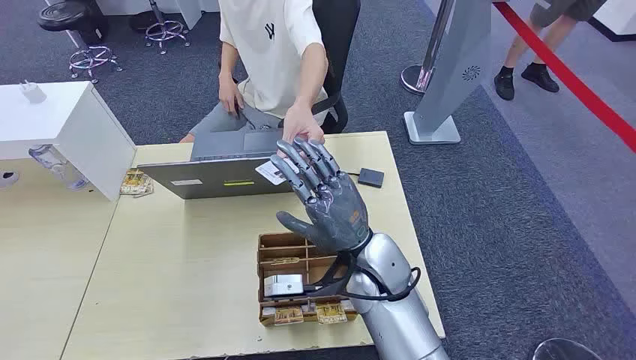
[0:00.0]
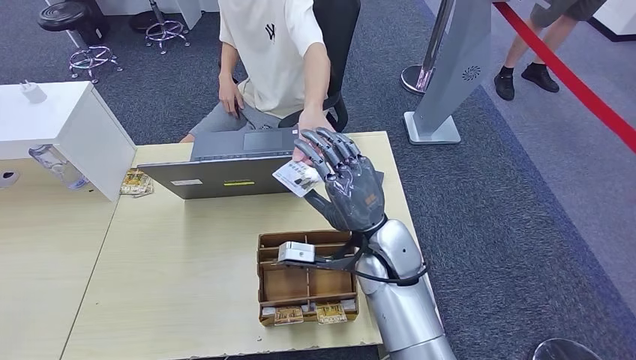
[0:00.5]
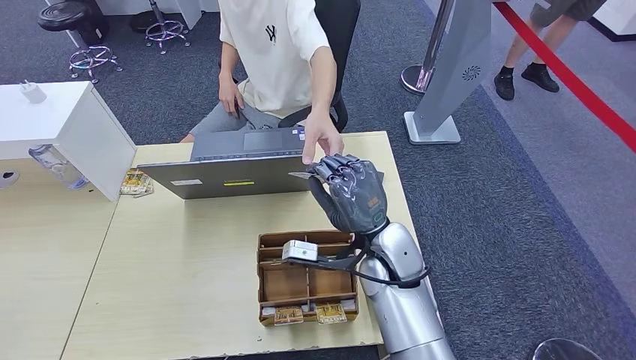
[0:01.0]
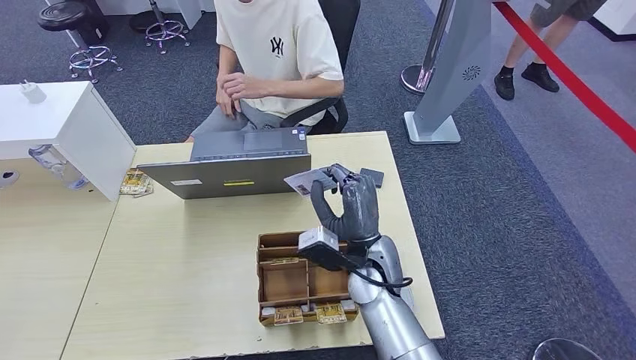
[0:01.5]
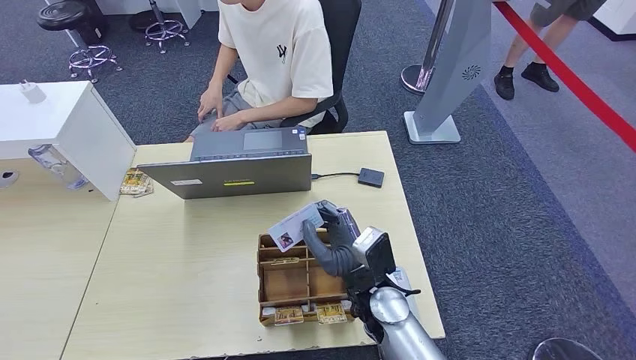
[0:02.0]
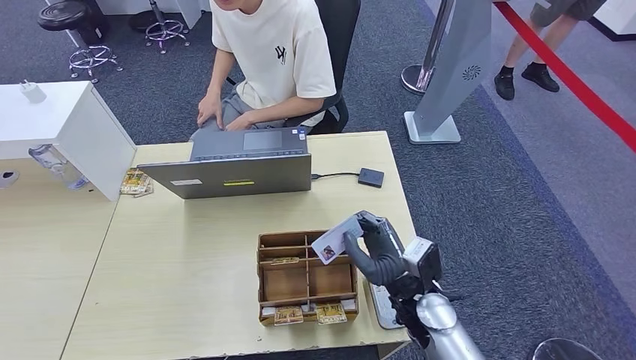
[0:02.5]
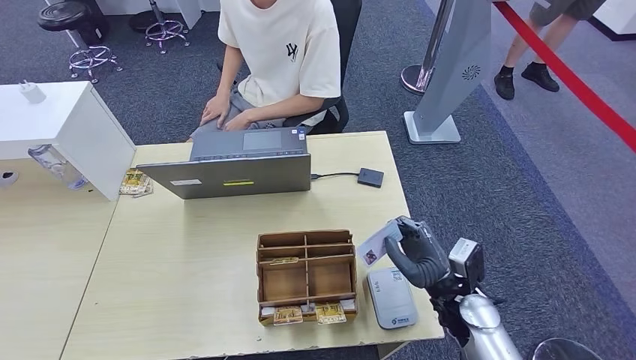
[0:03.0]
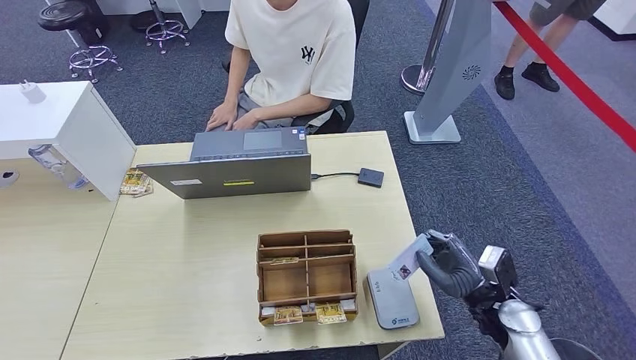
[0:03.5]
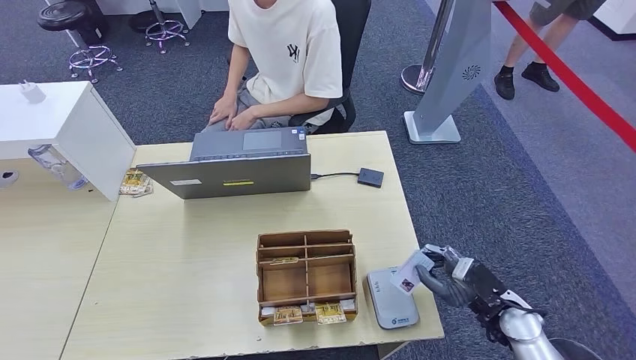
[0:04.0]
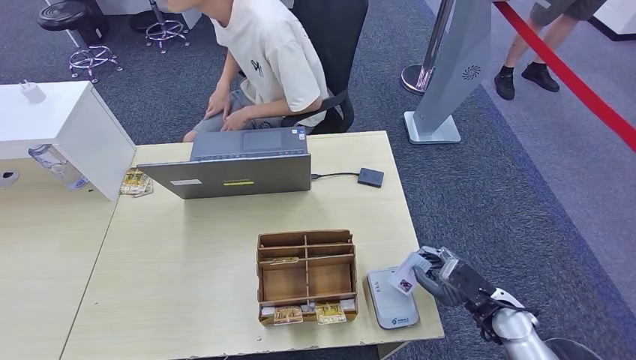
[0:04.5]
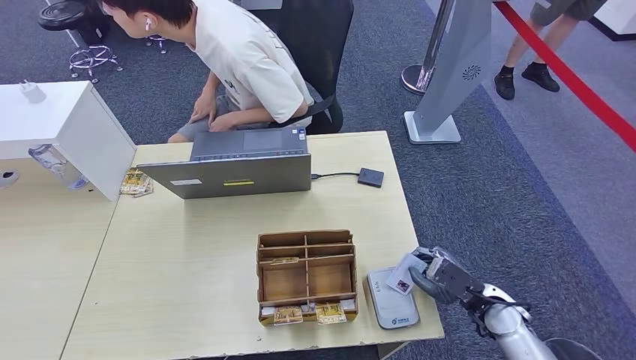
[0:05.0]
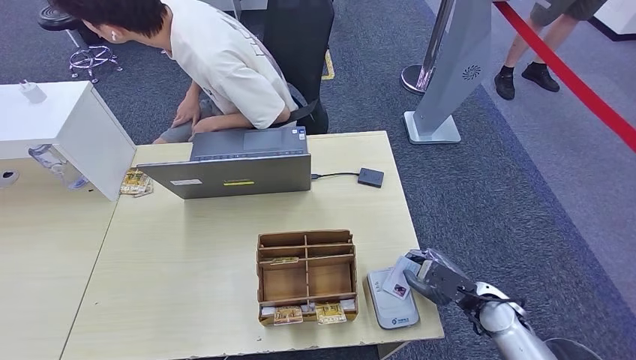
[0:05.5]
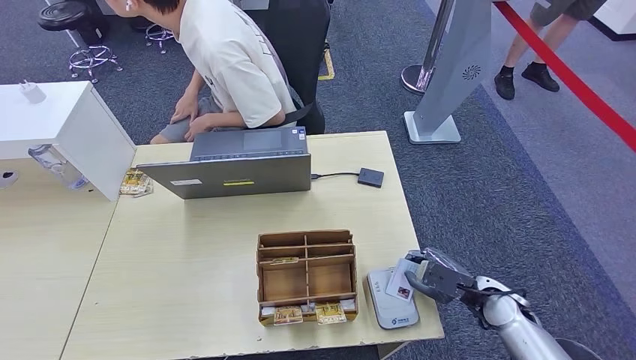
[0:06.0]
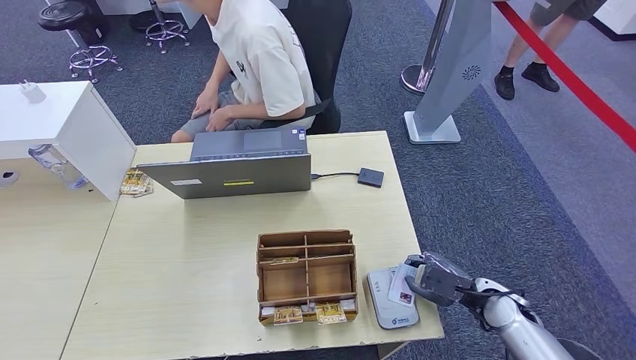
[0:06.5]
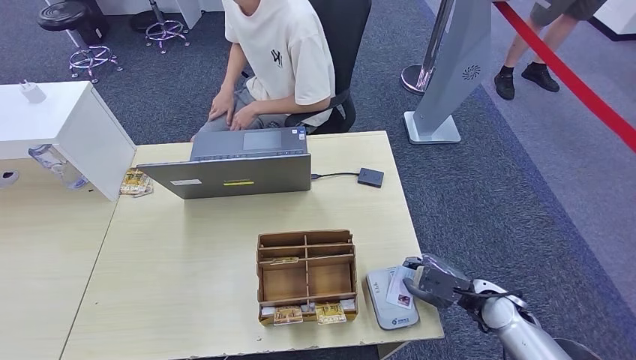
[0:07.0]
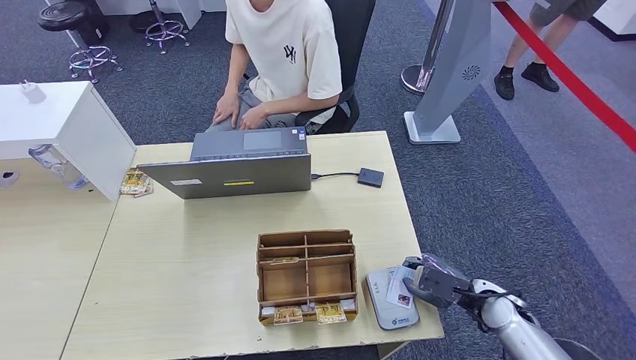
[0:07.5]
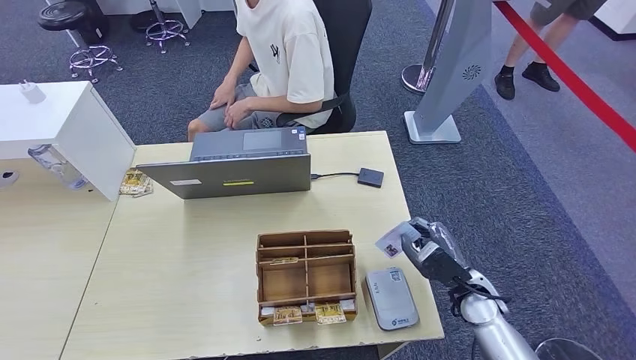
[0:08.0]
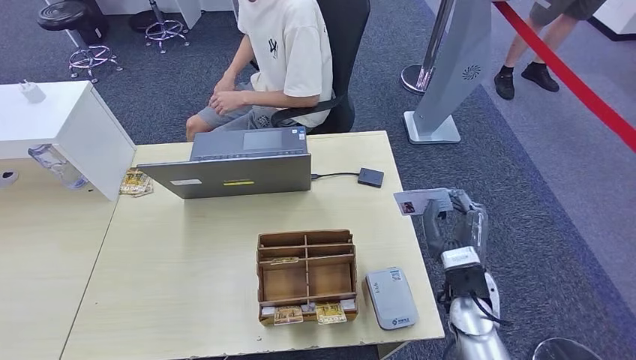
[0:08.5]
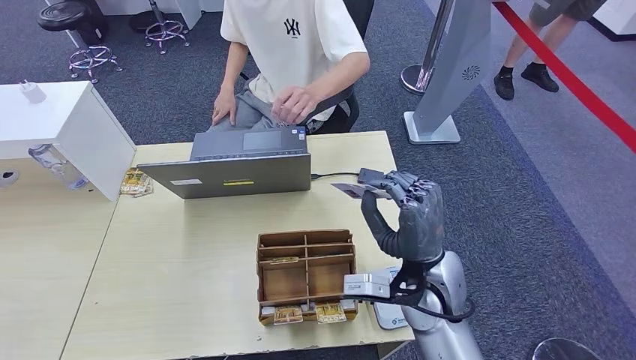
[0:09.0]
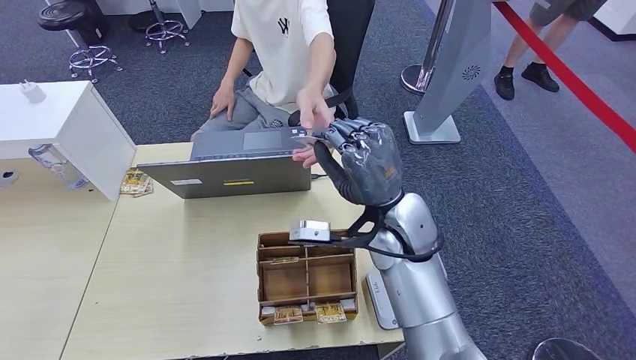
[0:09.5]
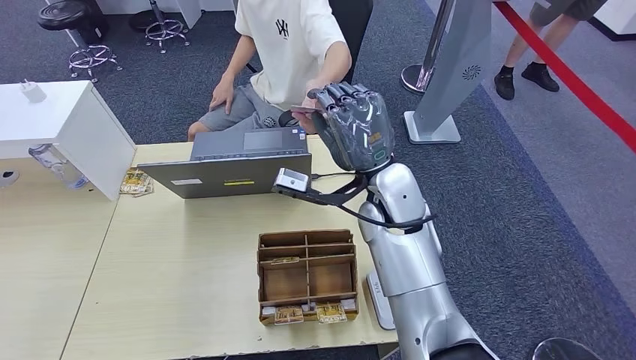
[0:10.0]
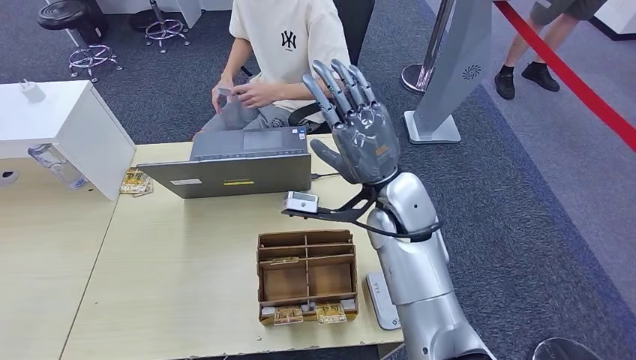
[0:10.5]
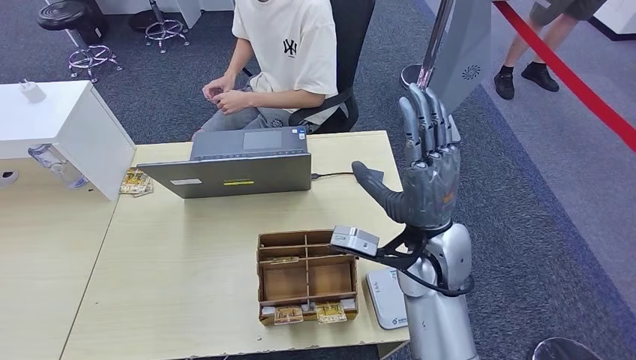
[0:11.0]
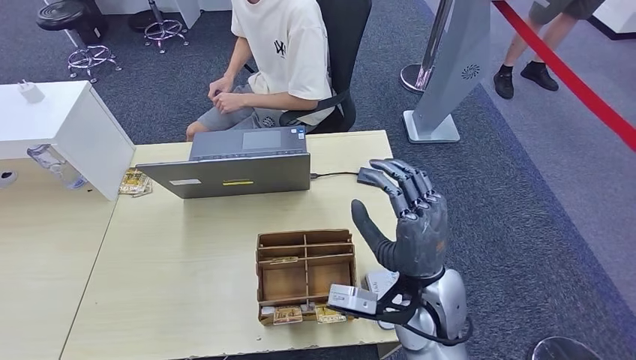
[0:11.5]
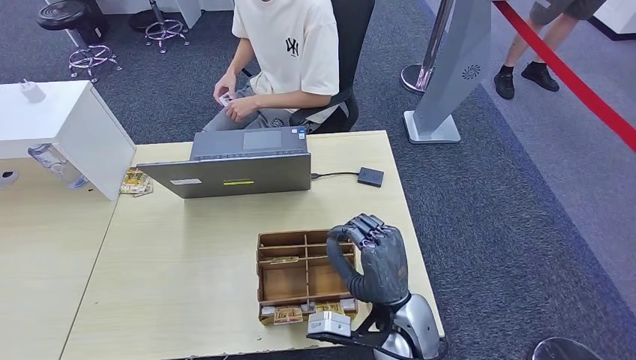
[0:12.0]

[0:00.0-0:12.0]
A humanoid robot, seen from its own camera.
Step, 0:00.0 to 0:01.5: Take the ID card from the person's hand.
Step, 0:02.0 to 0:08.5: Place the ID card on the card reader.
Step, 0:09.0 to 0:11.0: Hand the ID card to the person.
0:02.0 to 0:04.0: The right hand moves to the right, roughly 25 cm.
0:08.0 to 0:10.0: The right hand shifts some 30 cm upward, to the left and forward.
0:10.0 to 0:12.0: The right hand shifts approximately 20 cm backward and downward.

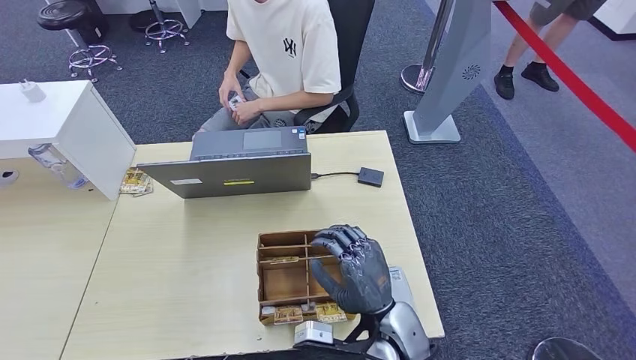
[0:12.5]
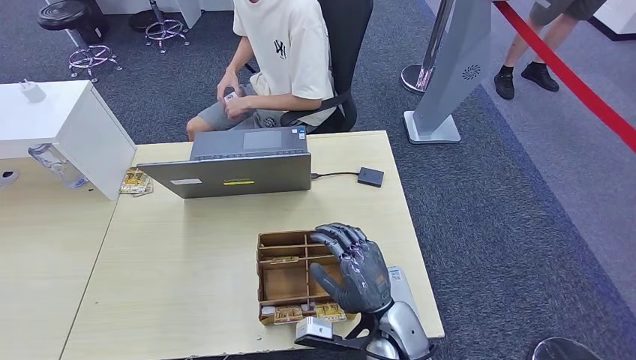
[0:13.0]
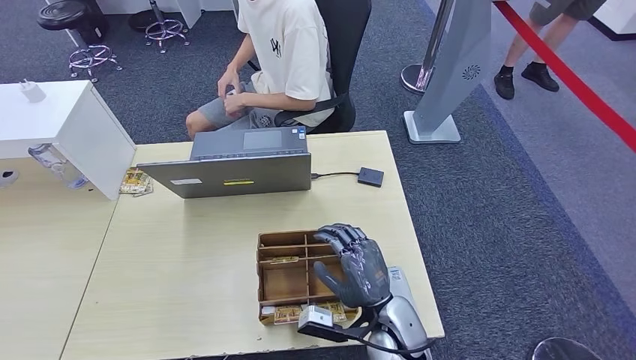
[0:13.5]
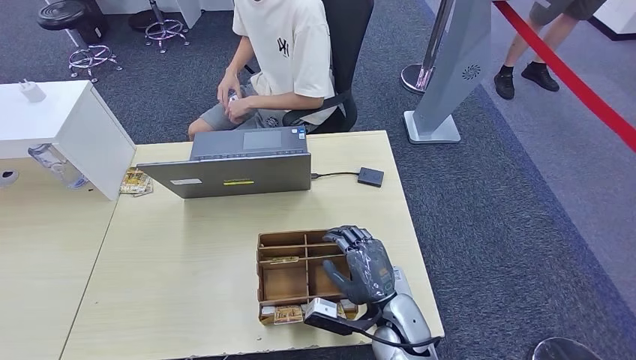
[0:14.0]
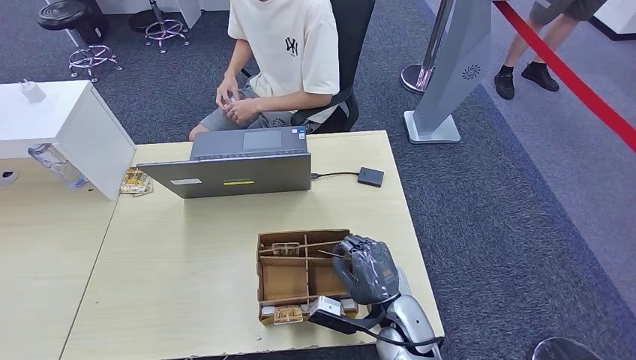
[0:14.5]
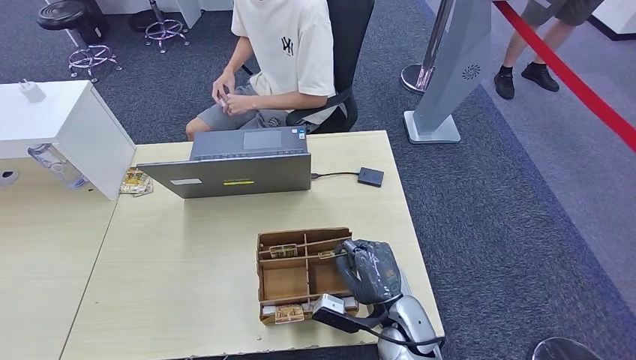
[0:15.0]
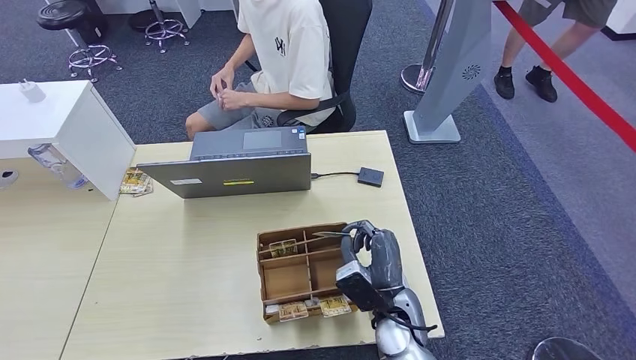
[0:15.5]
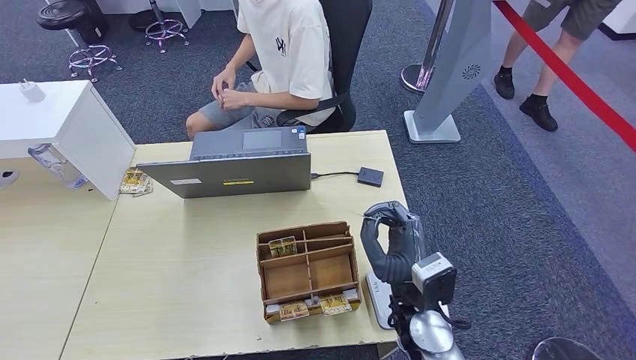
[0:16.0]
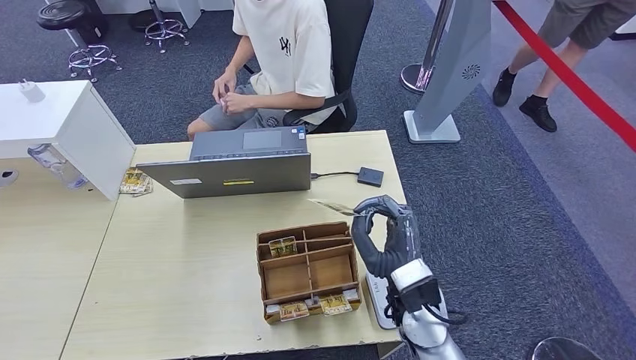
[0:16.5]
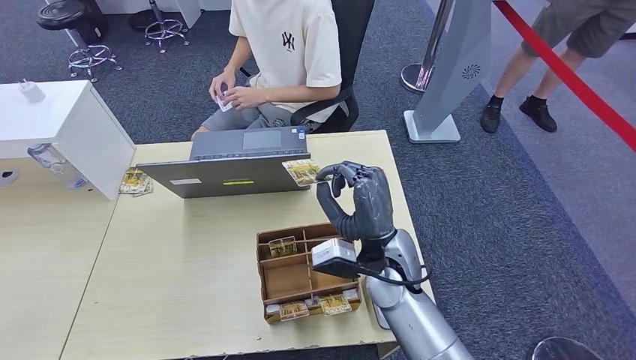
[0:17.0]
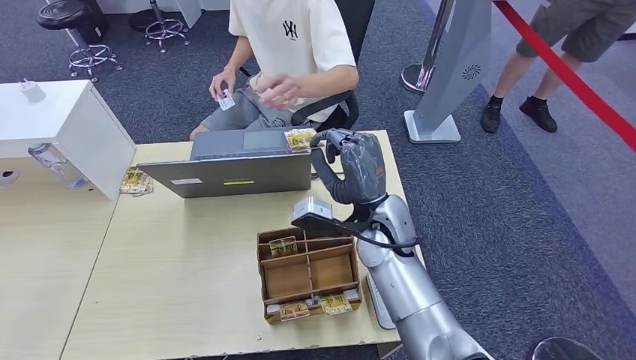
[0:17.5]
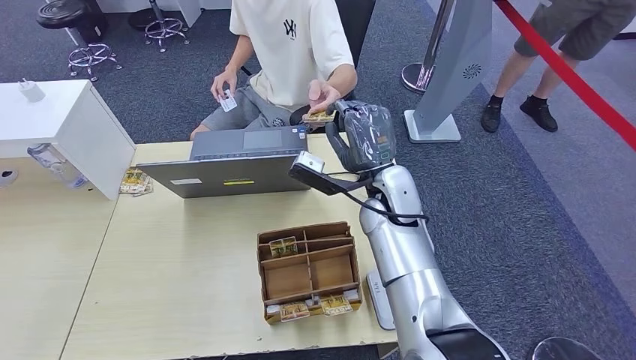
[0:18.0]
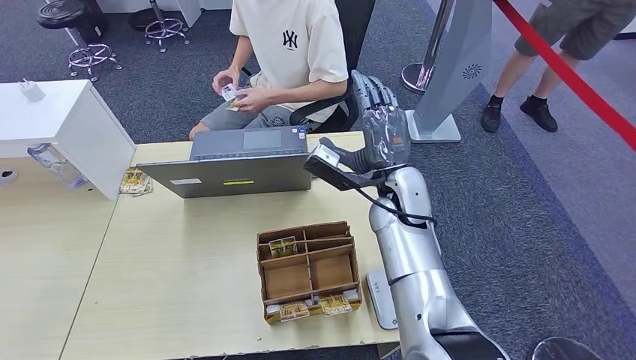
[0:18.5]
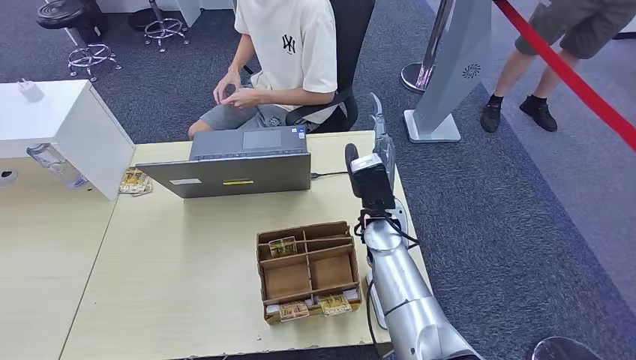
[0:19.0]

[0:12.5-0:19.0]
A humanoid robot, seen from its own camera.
Step, 0:14.0 to 0:16.0: Pick up the room key from the key card box.
Step, 0:16.5 to 0:18.5: Hand the room key to the person.
0:12.5 to 0:14.5: The right hand goes some 5 cm downward.
0:14.5 to 0:17.0: The right hand goes about 15 cm upward and forward.
0:17.0 to 0:19.0: The right hand moves forward, about 5 cm.
